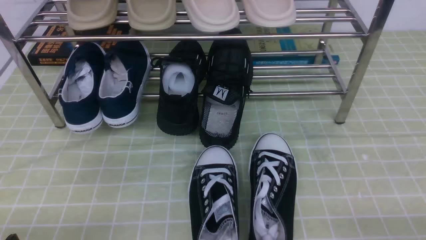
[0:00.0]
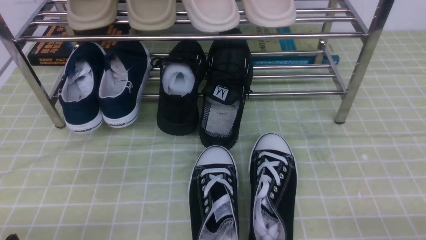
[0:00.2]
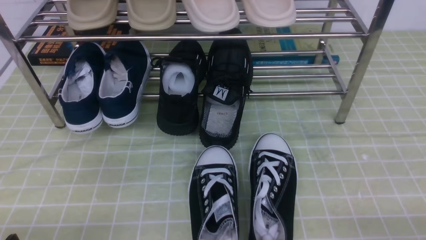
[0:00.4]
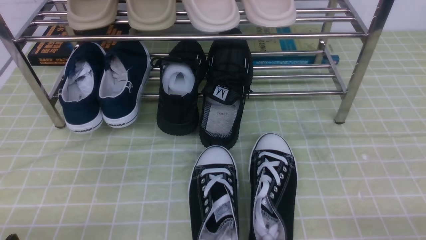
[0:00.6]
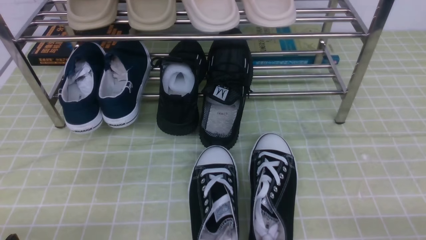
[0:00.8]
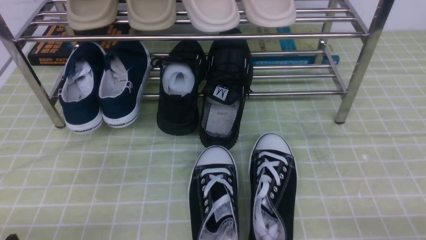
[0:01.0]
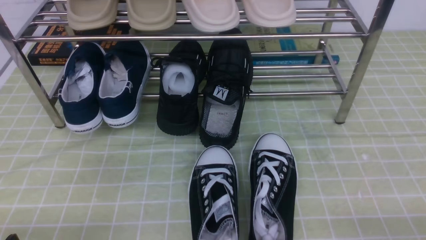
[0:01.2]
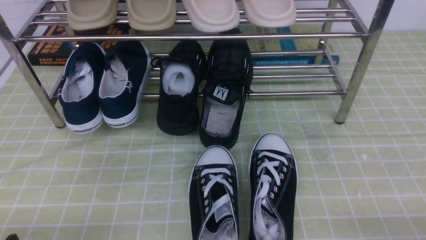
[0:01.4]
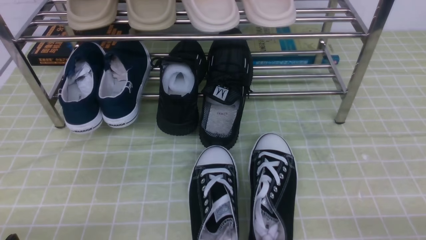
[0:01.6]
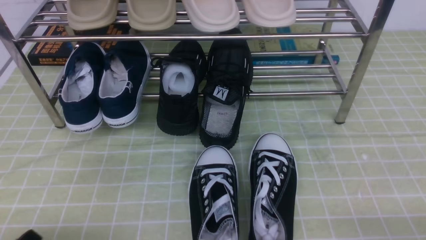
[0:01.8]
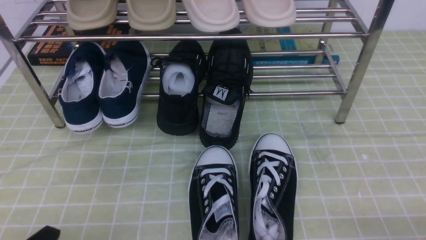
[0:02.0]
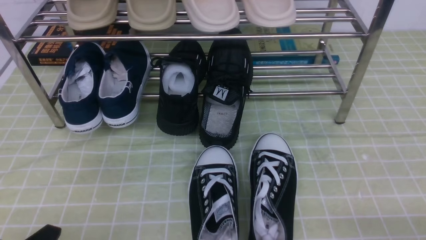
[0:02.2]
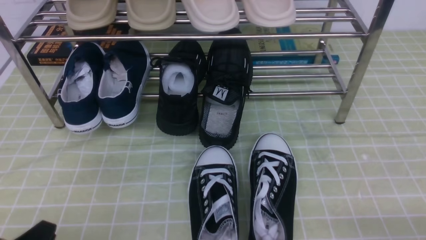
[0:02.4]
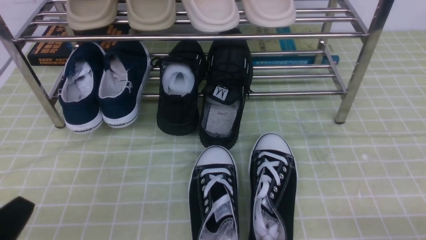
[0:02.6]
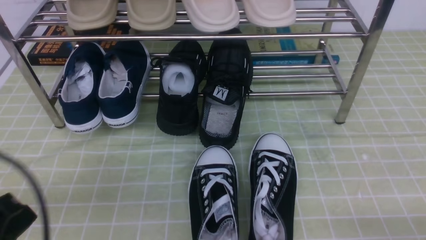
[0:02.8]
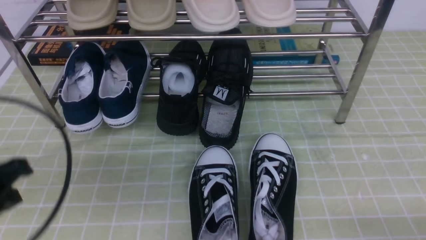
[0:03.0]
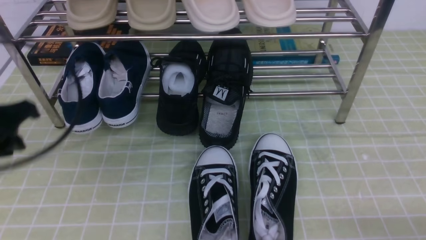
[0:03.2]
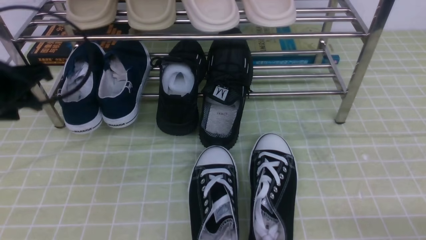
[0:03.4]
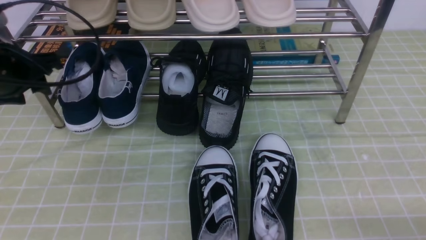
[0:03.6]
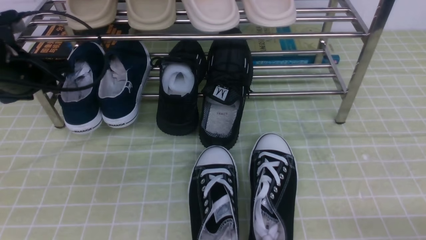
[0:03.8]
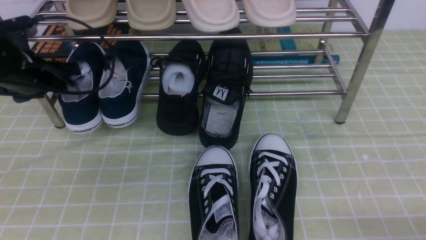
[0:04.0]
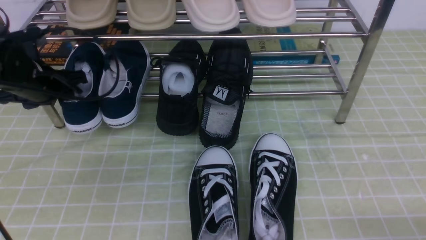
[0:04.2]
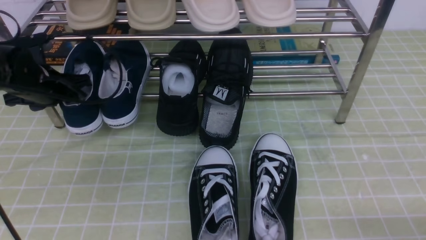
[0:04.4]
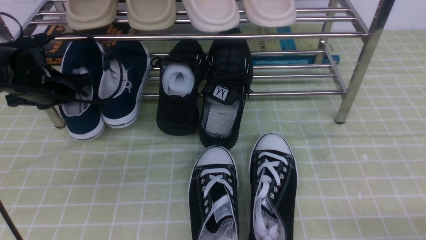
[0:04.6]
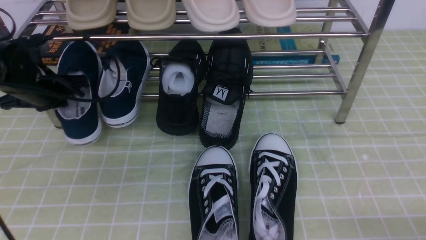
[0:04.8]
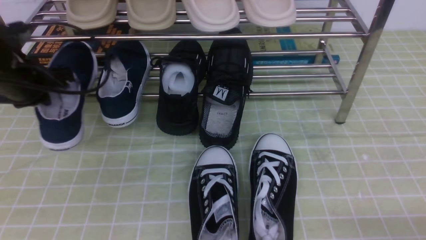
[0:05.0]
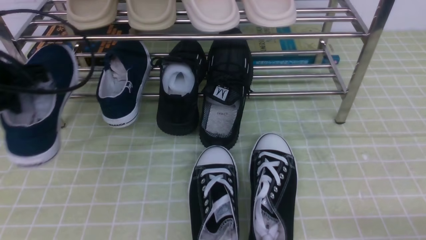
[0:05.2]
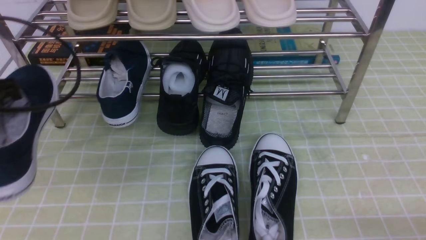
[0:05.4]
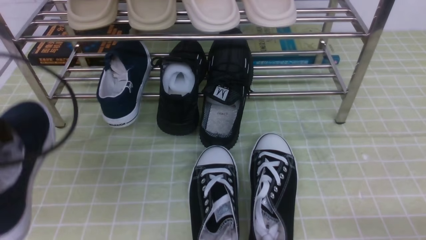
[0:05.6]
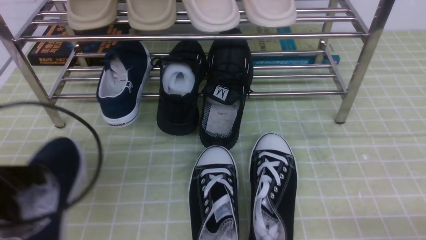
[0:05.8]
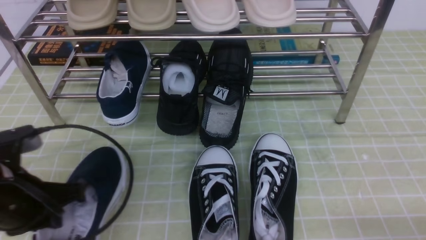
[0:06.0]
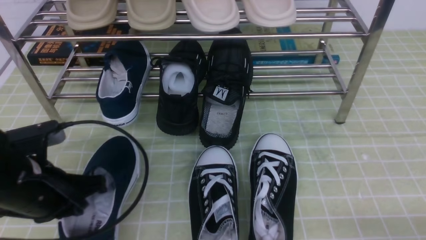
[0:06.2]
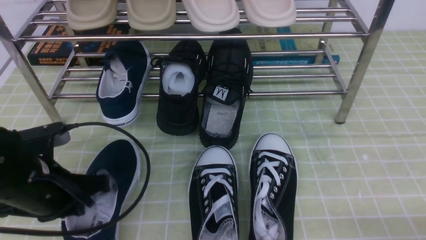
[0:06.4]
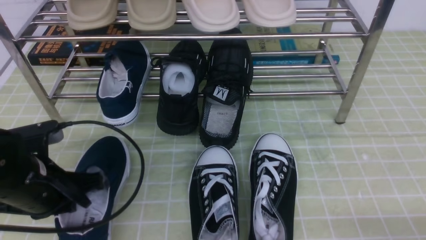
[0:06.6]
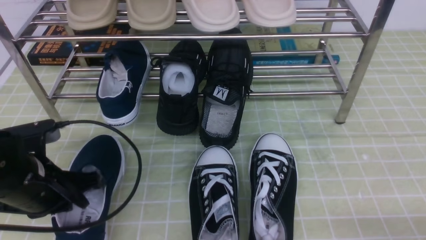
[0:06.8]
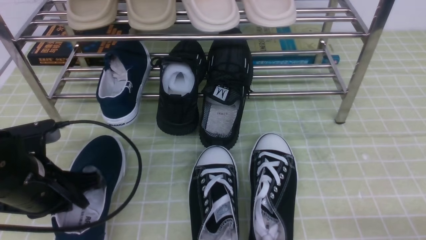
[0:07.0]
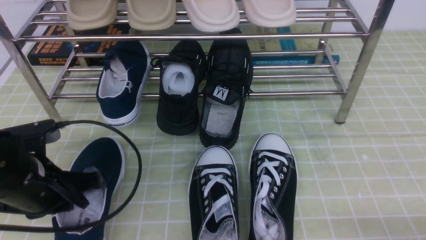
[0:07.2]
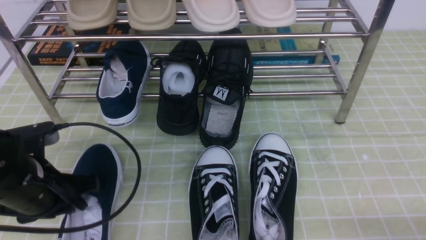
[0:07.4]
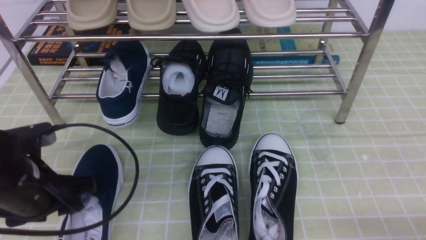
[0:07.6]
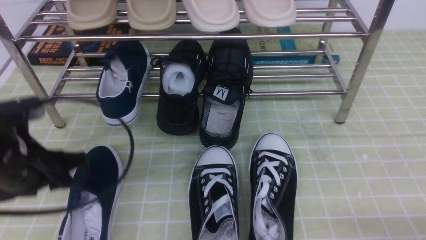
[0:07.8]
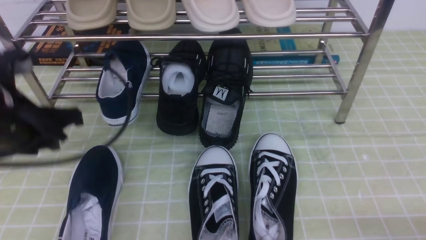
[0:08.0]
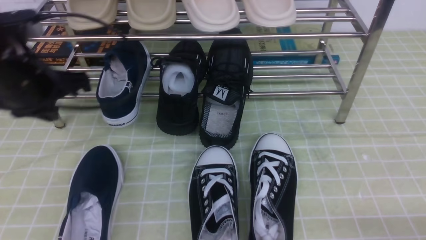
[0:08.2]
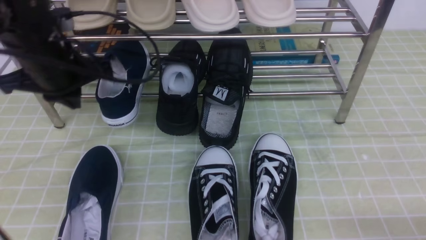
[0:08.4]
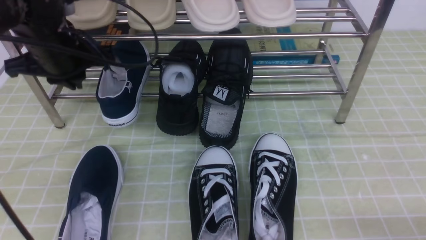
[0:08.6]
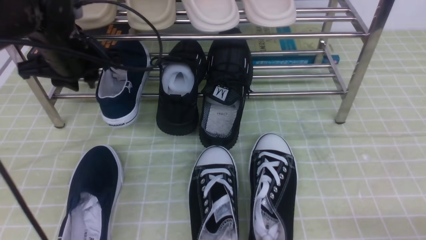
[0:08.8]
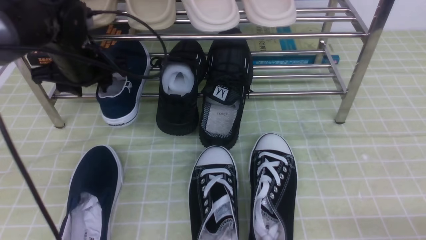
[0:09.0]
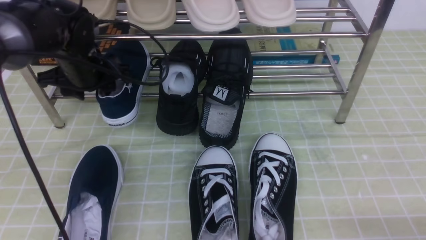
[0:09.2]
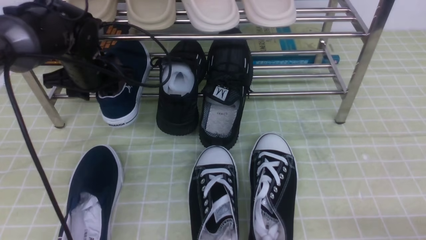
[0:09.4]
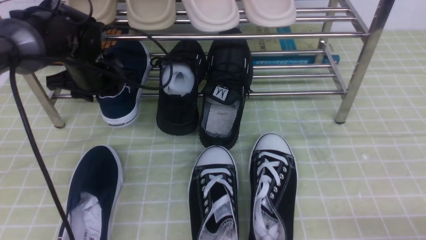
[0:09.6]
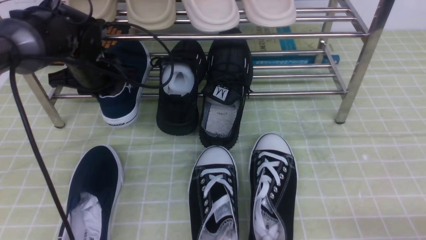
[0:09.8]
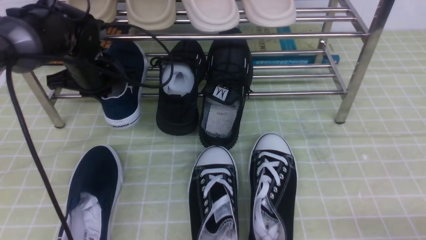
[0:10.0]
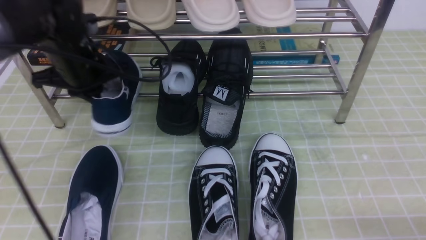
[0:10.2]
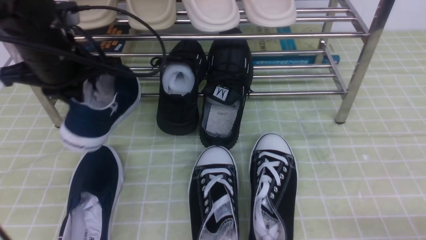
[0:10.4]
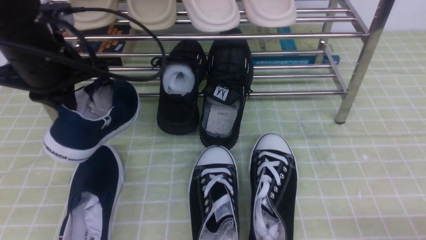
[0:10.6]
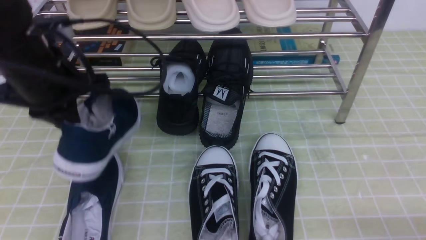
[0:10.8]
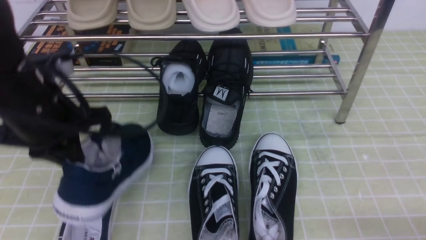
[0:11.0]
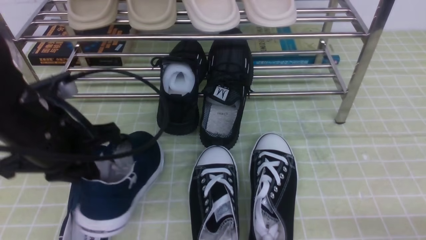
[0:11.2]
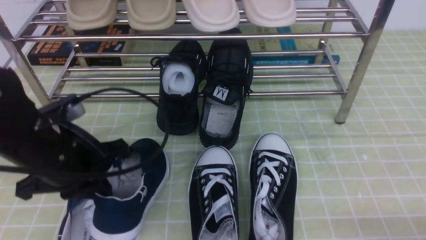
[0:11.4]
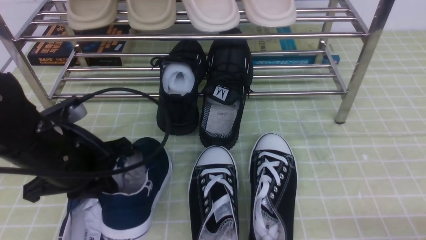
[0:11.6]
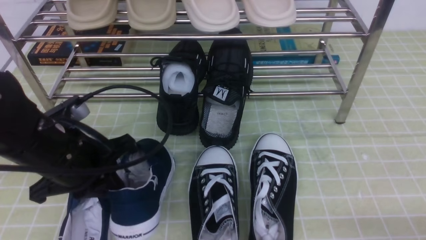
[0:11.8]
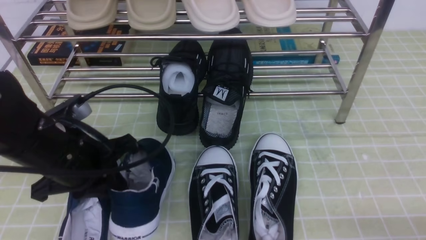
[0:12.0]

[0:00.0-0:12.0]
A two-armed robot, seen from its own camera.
Step, 0:00.0 to 0:04.6: use the left arm to clamp a shoe on the left side of the shoe rack.
Step, 0:04.8 to 0:08.0: Use your left arm to remove the clamped shoe from the shoe rack and put it down.
Step, 0:08.2 to 0:09.8: use the left arm to clamp a shoe on the left side of the shoe rack.
0:01.6 to 0:03.0: The right gripper opens up. The left gripper shifts some 15 cm upward and forward, and closes its fingers.
0:03.0 to 0:04.4: The left gripper heads forward, covering some 25 cm, and opens its fingers.
0:04.4 to 0:06.0: The left gripper is displaced backward by about 20 cm, and closes its fingers.
0:06.0 to 0:07.6: The left gripper opens.
0:07.6 to 0:09.0: The left gripper moves forward, roughly 20 cm, and closes and opens again.
0:09.0 to 0:10.4: The left gripper is displaced backward by approximately 5 cm, and closes up.
0:10.4 to 0:12.0: The left gripper heads backward and downward, covering approximately 15 cm.

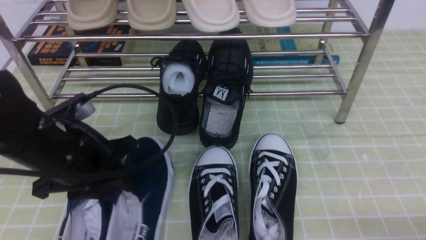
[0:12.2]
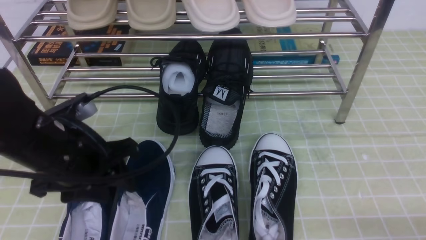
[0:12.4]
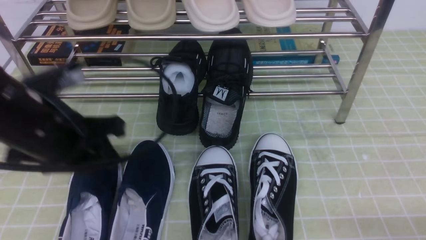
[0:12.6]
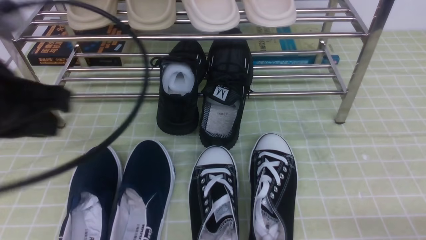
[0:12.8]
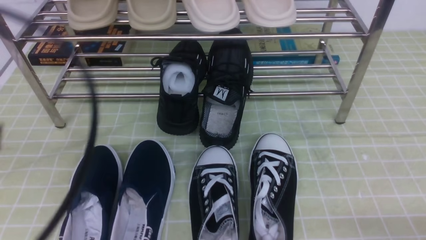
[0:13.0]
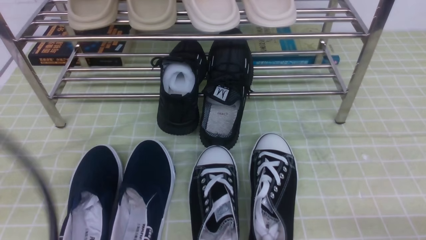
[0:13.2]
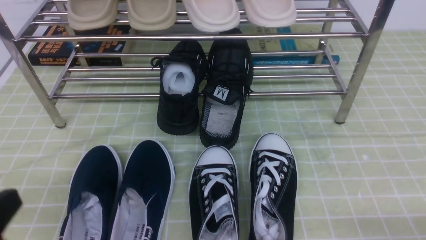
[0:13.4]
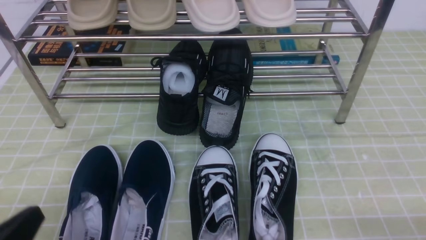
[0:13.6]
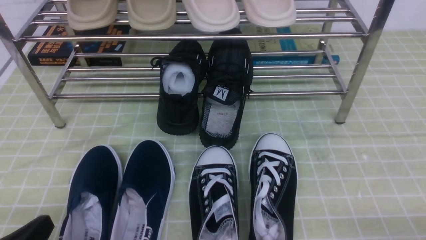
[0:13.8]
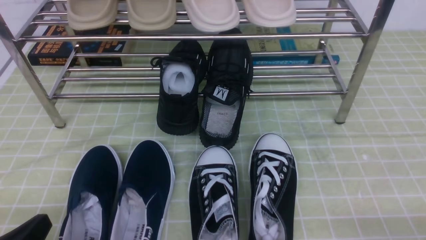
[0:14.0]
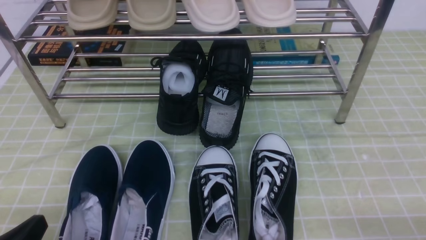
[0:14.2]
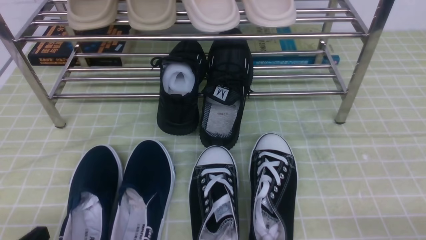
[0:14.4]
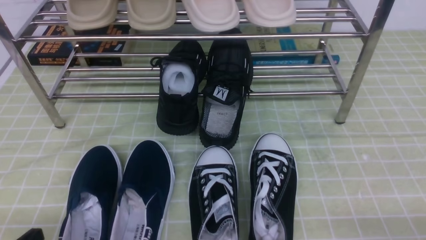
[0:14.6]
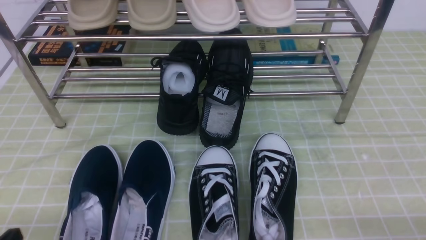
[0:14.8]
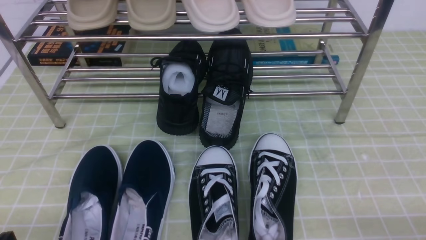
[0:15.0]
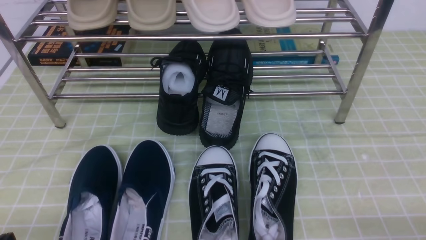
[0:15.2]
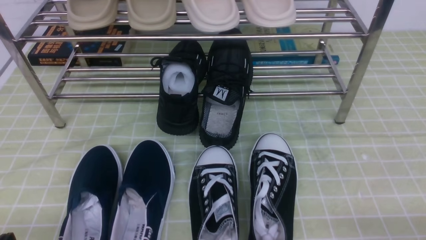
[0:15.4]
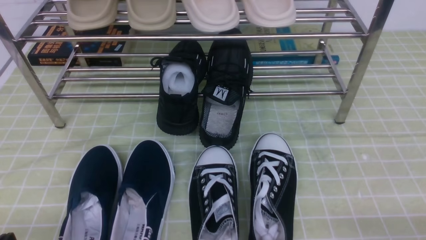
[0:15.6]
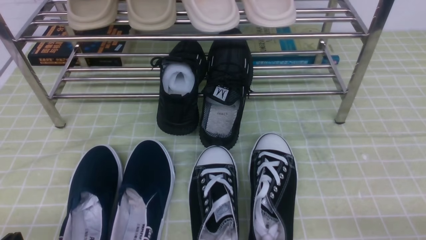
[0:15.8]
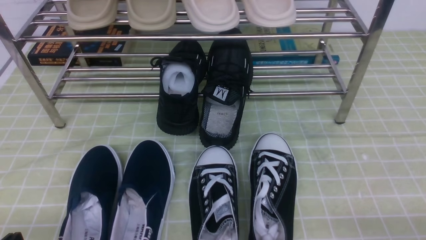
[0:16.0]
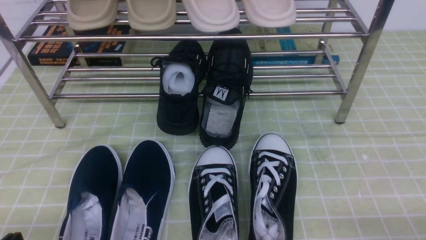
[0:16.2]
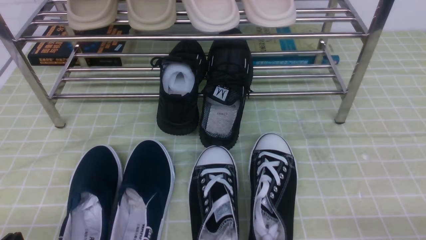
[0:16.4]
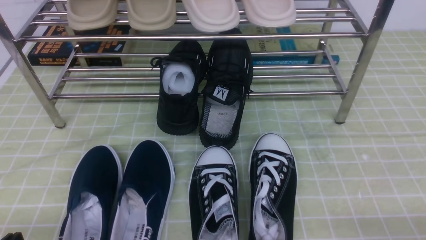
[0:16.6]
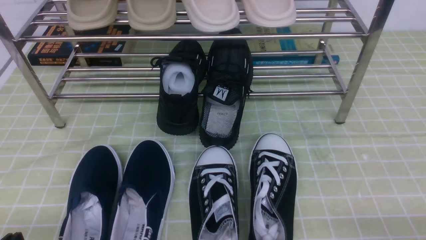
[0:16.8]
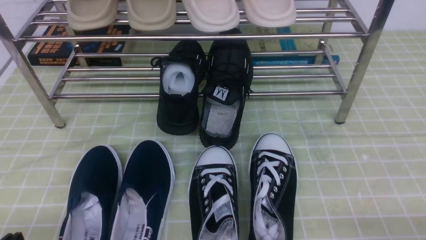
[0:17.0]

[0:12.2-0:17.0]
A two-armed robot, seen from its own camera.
0:12.2 to 0:13.8: The left gripper shifts some 15 cm backward, reaches approximately 15 cm upward, then returns, and closes up.
0:13.8 to 0:15.4: The grippers make only small movements.
0:15.4 to 0:17.0: Both grippers stay about where they are.
